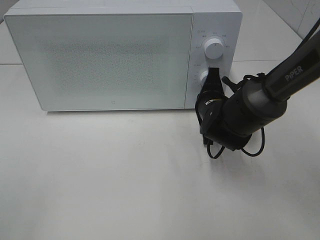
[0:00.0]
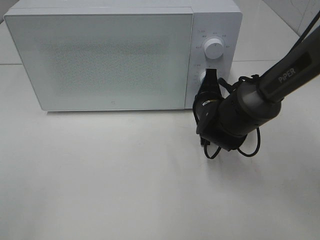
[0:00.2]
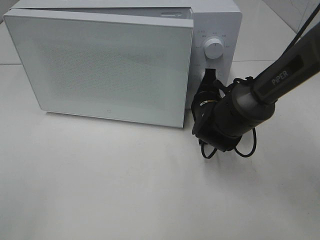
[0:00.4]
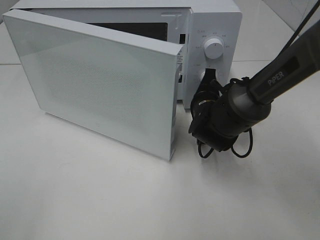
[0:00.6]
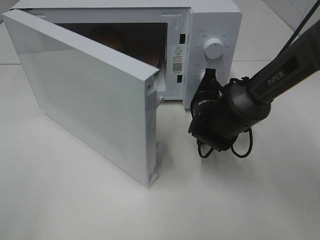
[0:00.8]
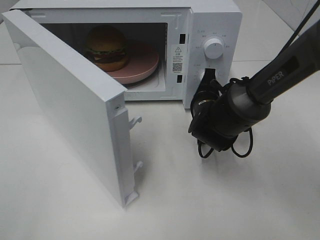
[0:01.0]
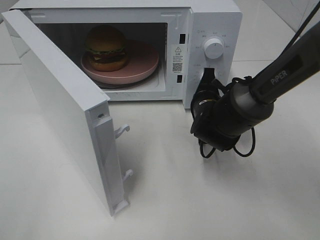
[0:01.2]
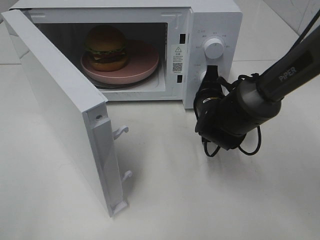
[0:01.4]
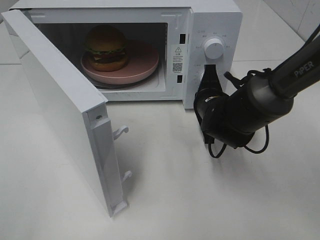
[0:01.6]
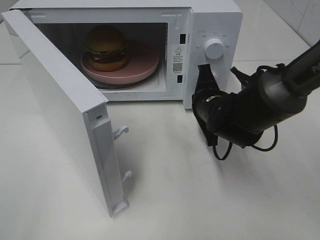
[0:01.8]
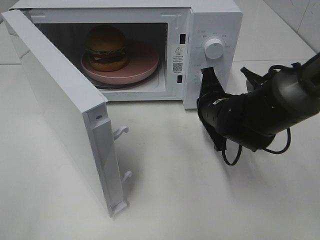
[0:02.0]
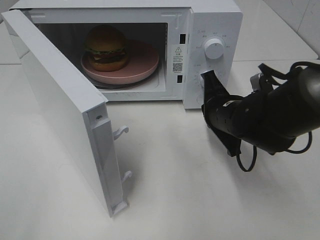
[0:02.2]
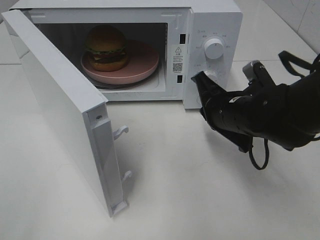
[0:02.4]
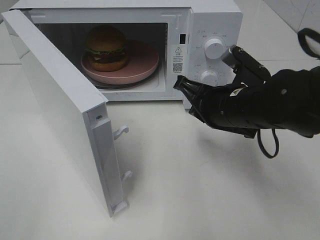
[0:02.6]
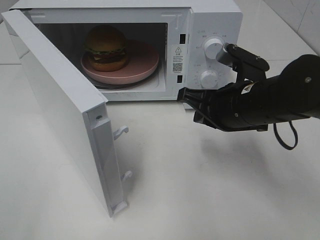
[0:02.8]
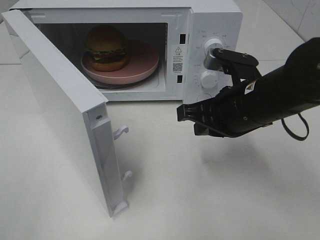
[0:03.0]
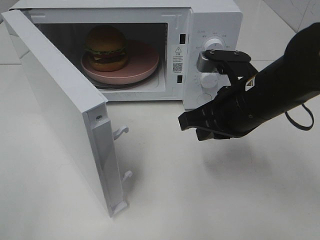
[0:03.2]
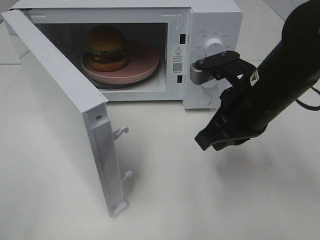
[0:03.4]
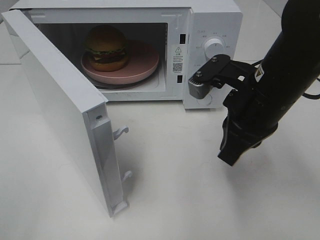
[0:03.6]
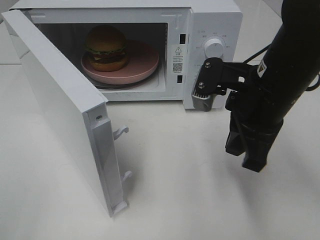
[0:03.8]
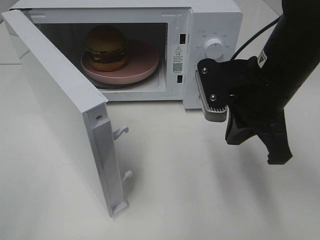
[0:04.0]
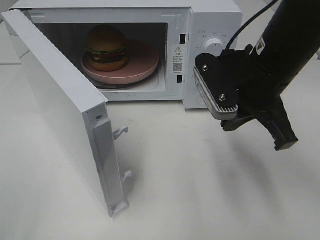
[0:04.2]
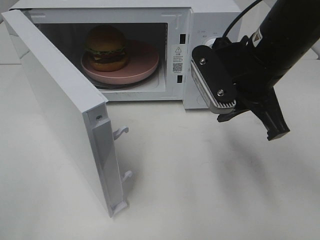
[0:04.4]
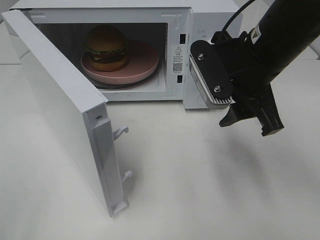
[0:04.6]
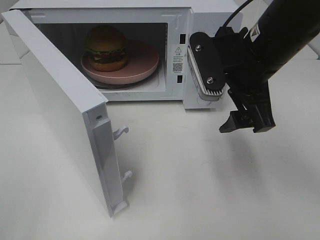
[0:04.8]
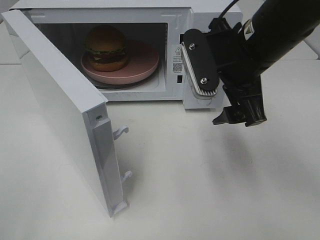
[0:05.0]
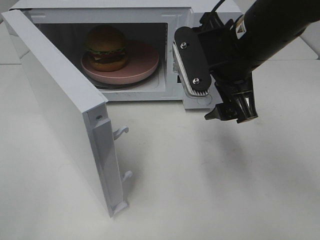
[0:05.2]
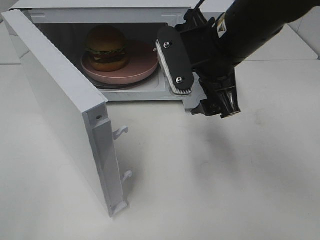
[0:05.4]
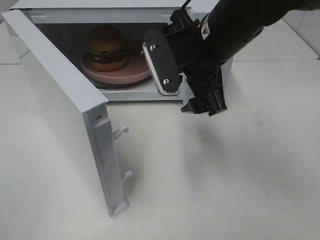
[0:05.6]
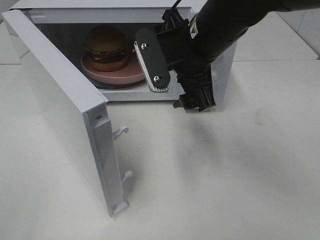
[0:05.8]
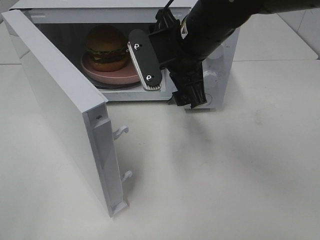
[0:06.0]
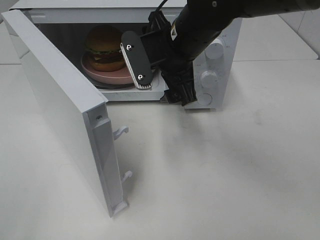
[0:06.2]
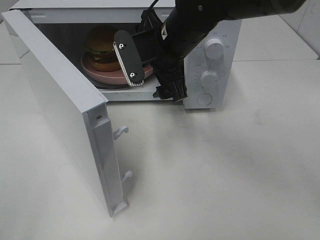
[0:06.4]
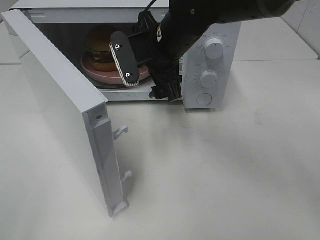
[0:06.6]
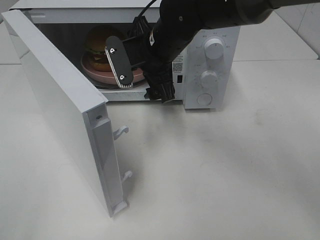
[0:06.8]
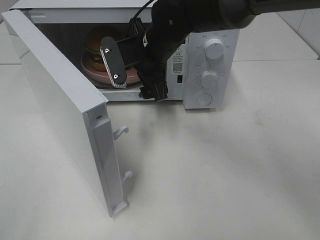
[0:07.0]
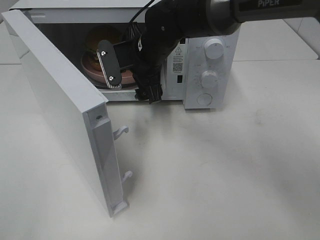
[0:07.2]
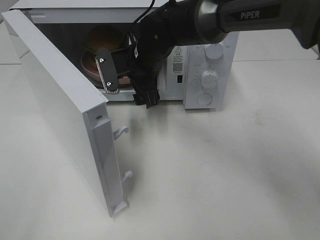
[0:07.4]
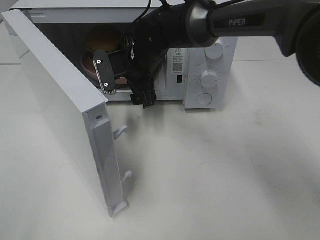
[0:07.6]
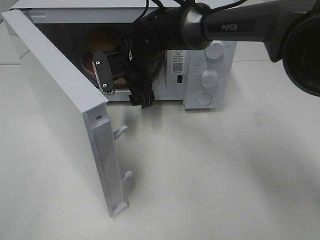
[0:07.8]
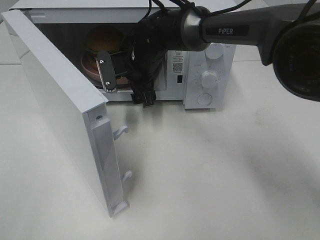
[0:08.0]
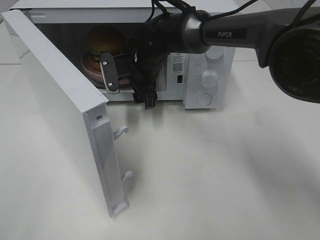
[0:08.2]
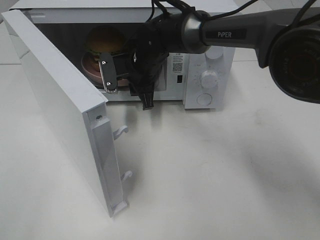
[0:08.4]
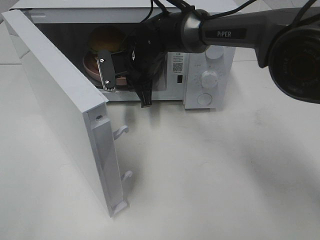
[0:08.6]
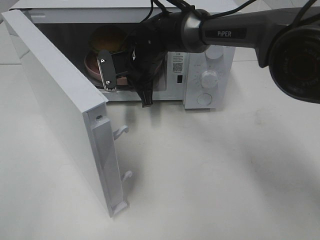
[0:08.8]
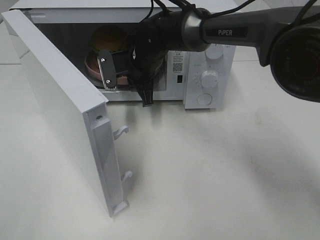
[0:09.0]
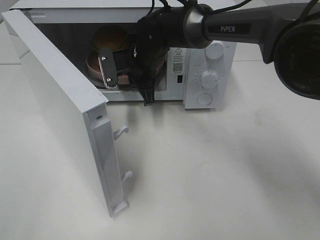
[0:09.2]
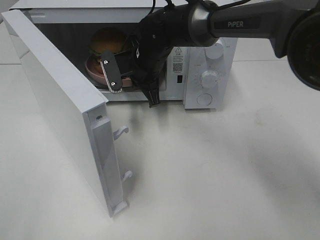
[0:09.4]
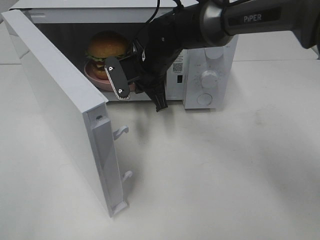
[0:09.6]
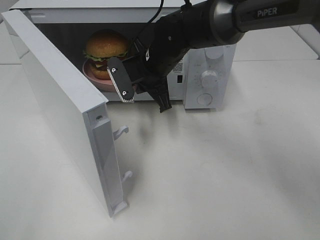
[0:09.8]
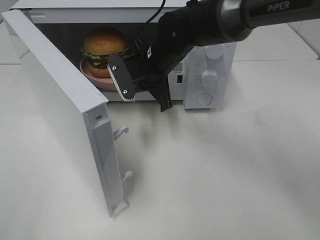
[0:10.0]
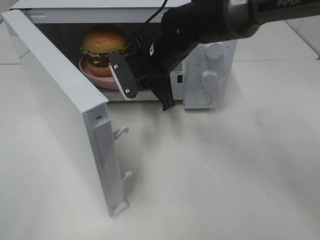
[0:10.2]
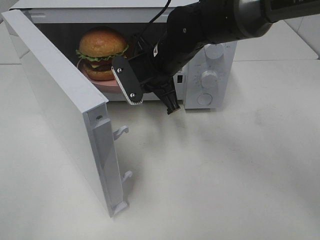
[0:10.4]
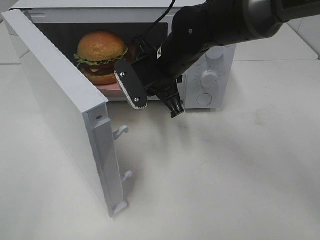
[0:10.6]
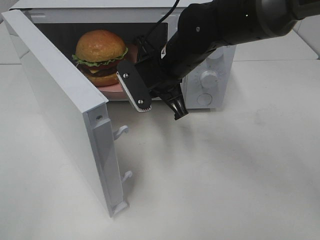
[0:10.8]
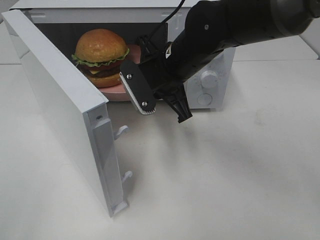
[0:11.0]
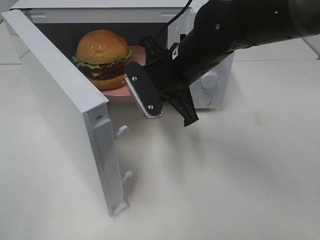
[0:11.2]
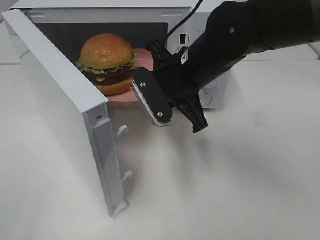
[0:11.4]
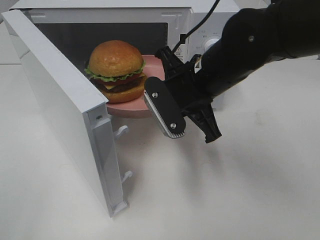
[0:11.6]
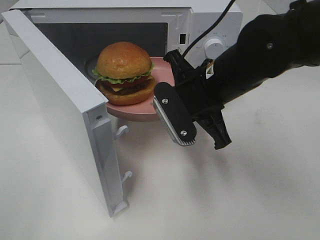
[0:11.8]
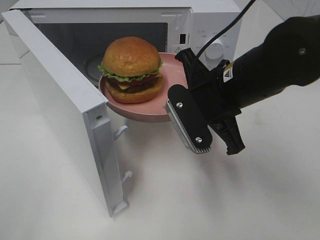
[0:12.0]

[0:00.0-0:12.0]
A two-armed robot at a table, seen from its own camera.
Task of the whole recording: Heat the burger.
Step, 0:00.0 to 0:02.0: Right hand: press the switch.
Step, 0:02.2 to 0:08.6: Right hand: grab the plate with the hamburger.
0:01.6 to 0:03.0: The right gripper travels upward and backward by roughly 15 cm.
0:03.0 to 0:04.4: The right gripper moves upward, about 5 cm.
0:04.4 to 0:06.0: The right gripper shifts some 10 cm to the left and forward, and opens.
0:06.0 to 0:07.6: The right gripper travels forward, downward and to the left by about 15 cm.
0:07.6 to 0:09.0: The right gripper closes.
0:09.0 to 0:10.4: The right gripper travels backward by some 5 cm.
0:10.4 to 0:12.0: The right gripper shifts roughly 15 cm backward and to the right.

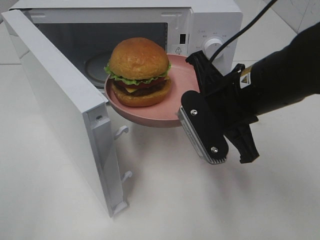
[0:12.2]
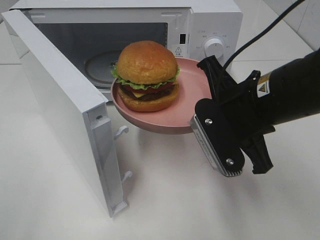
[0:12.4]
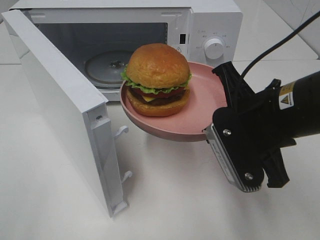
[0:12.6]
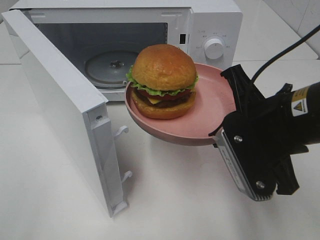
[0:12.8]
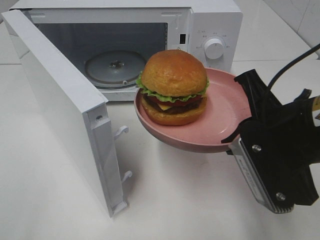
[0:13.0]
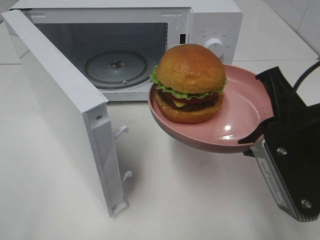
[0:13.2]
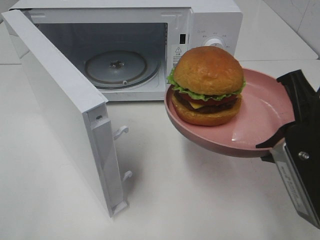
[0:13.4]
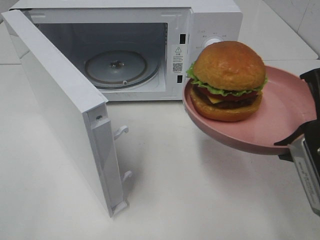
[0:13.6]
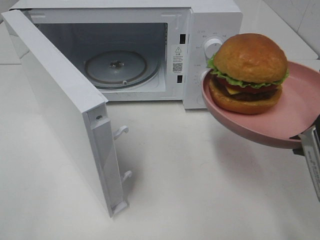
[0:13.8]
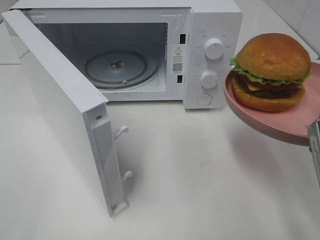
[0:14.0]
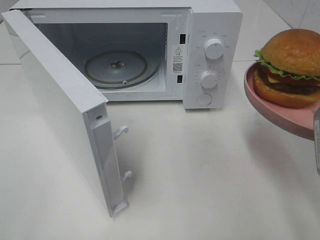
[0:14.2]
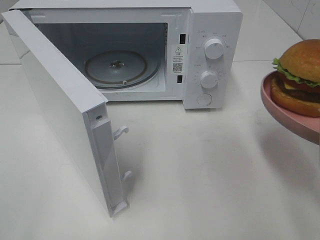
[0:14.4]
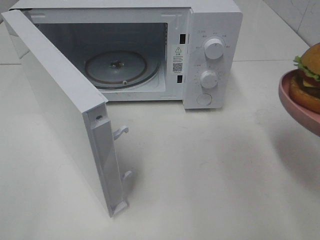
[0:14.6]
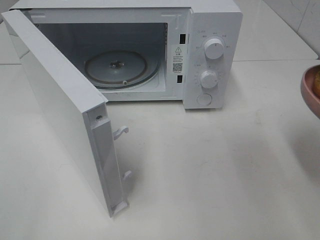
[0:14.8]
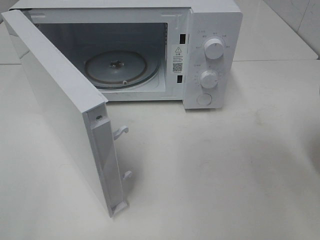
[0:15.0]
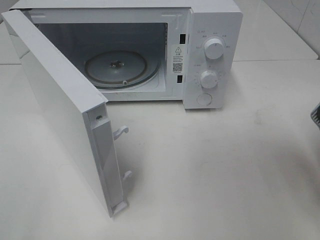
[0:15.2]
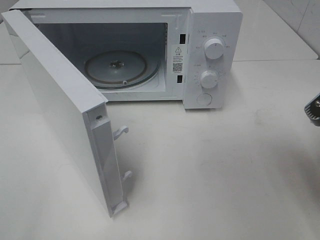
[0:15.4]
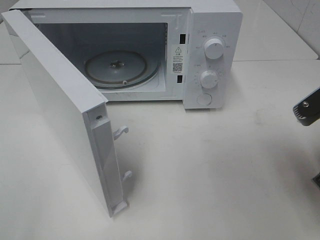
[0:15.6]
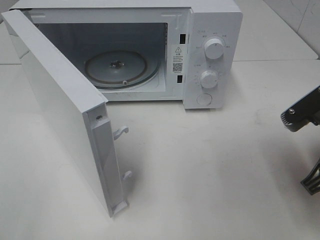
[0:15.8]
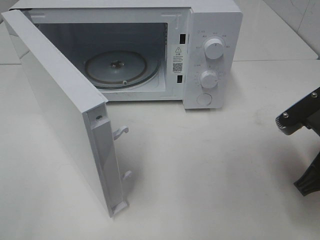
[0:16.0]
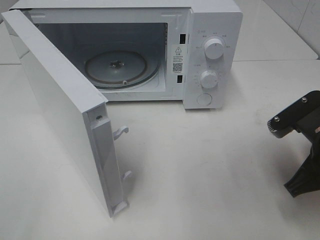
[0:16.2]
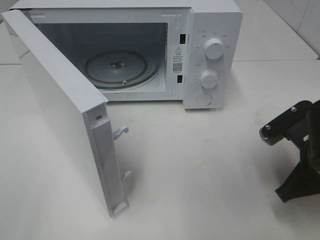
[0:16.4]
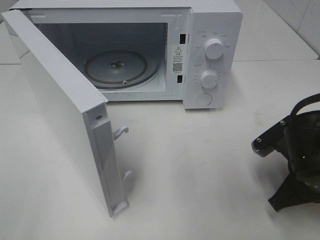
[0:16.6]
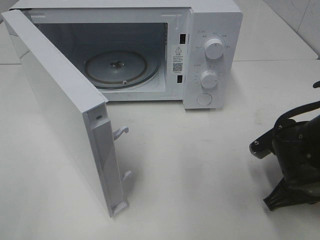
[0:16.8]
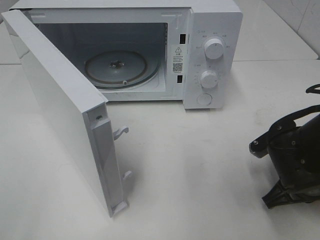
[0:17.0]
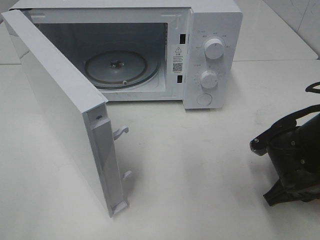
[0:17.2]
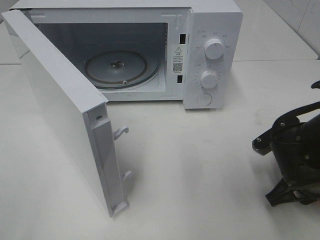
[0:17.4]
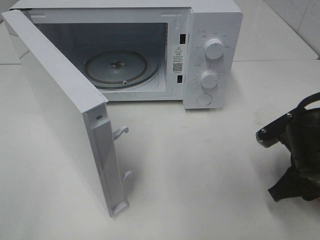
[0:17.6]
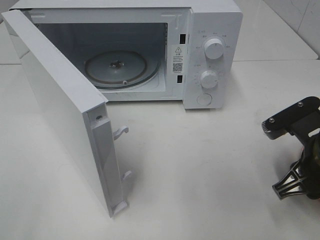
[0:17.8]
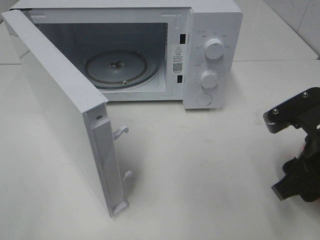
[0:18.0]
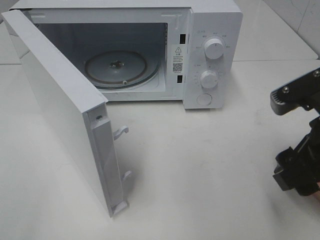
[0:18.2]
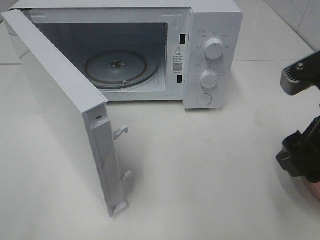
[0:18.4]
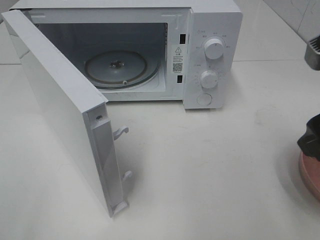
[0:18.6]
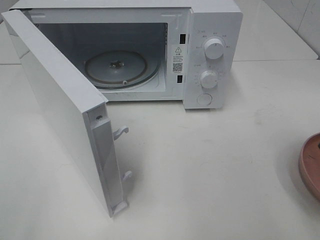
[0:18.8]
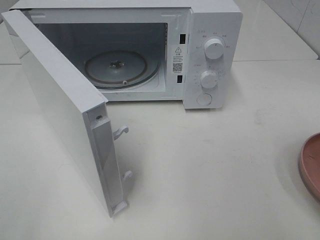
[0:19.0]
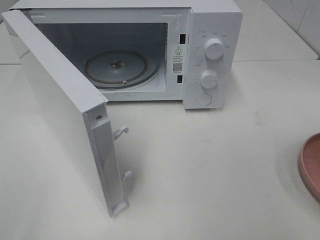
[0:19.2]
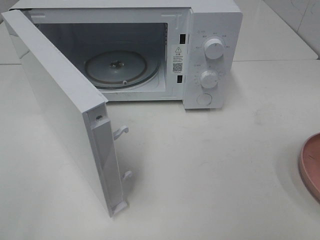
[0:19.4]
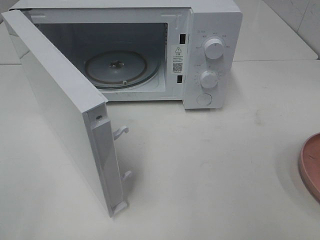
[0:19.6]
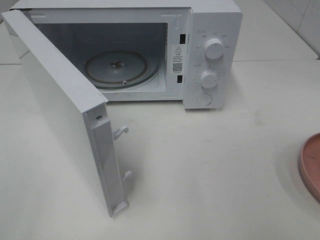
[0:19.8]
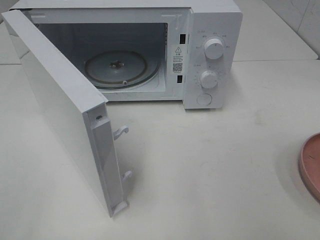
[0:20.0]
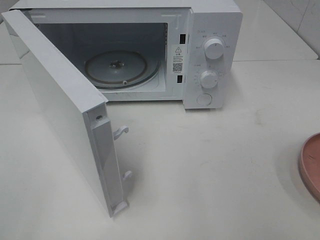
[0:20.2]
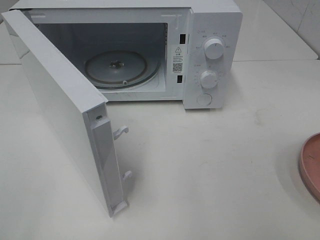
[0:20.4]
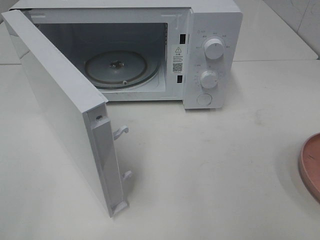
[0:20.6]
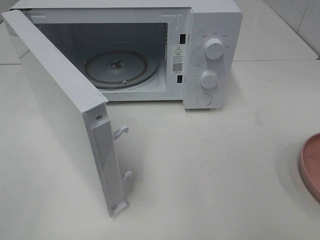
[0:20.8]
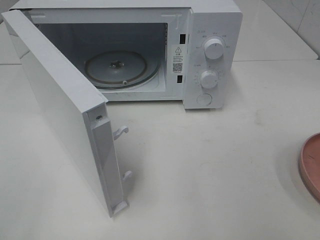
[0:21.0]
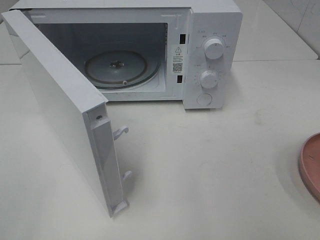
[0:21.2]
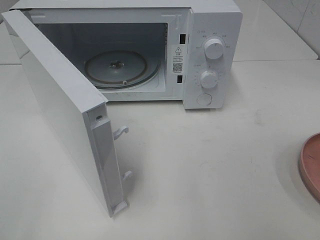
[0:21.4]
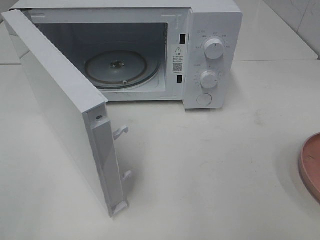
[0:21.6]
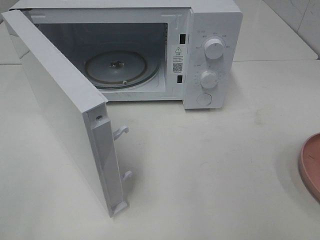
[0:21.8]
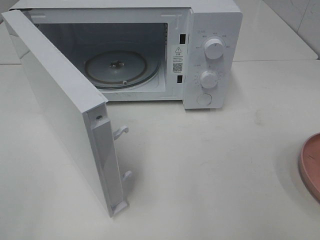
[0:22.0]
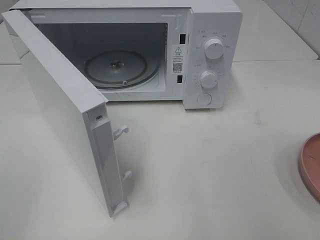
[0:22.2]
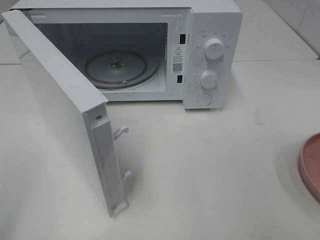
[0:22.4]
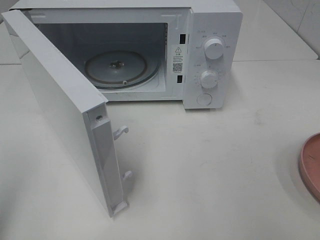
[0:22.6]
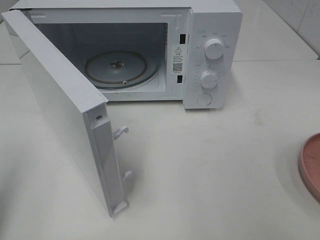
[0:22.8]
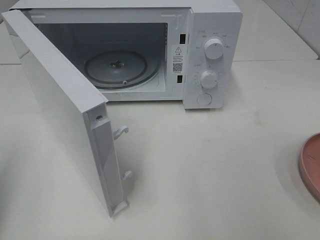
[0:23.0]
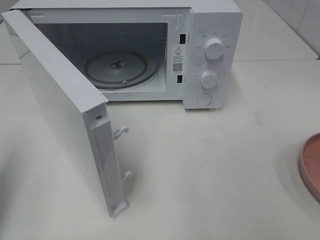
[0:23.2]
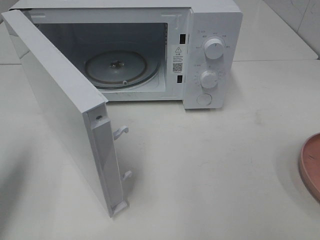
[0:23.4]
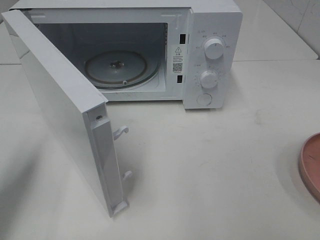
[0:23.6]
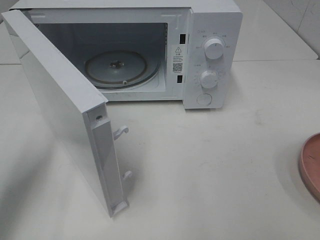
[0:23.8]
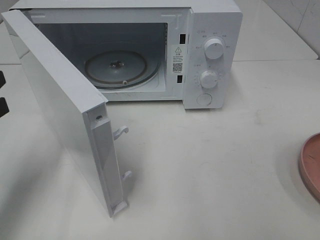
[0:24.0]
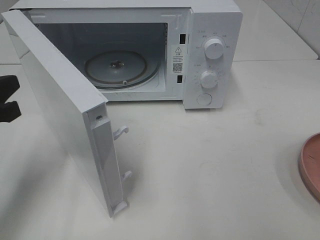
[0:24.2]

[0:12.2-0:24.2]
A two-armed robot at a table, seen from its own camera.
Task of the whole recording: Heat the burger.
Step, 0:12.2 to 0:17.8: Right hand: place the plate on the table.
0:12.2 to 0:13.8: The right gripper is displaced backward and to the right by approximately 15 cm.
0:15.2 to 0:16.6: The right gripper heads downward, covering approximately 10 cm.
0:16.6 to 0:18.2: The right gripper shifts approximately 10 cm upward, and opens its fingers.
0:18.2 to 0:19.8: The right gripper is displaced backward, to the right and upward by some 15 cm.
0:22.6 to 0:24.2: The left gripper travels forward, downward and to the right by approximately 15 cm.
